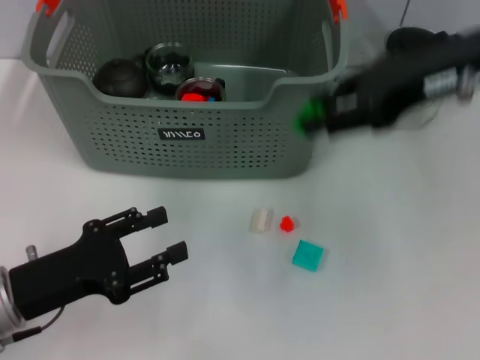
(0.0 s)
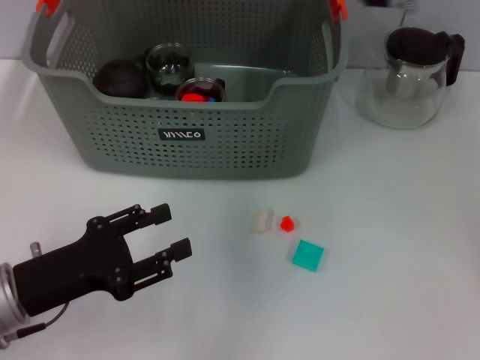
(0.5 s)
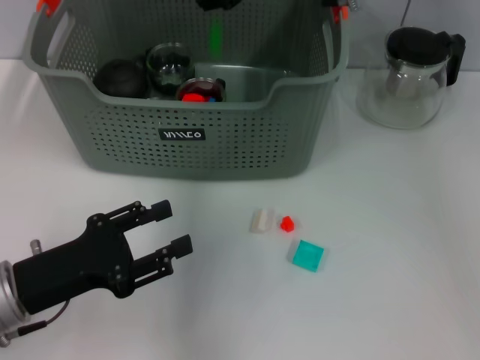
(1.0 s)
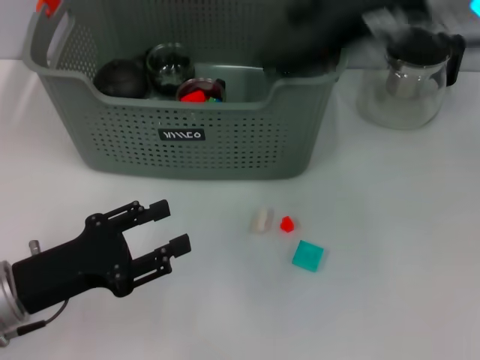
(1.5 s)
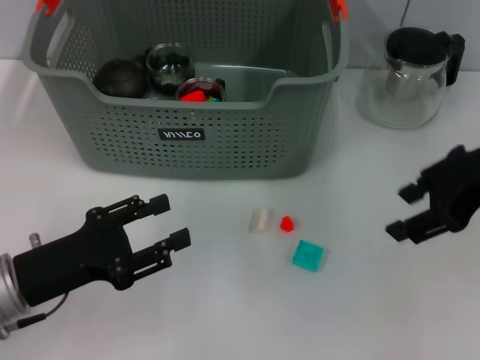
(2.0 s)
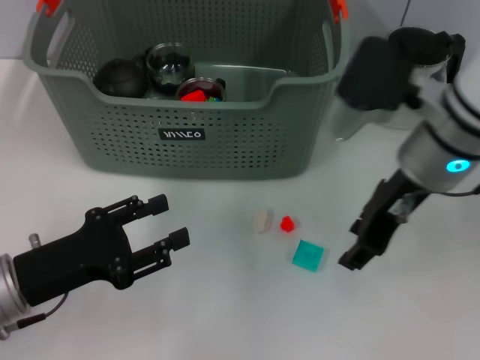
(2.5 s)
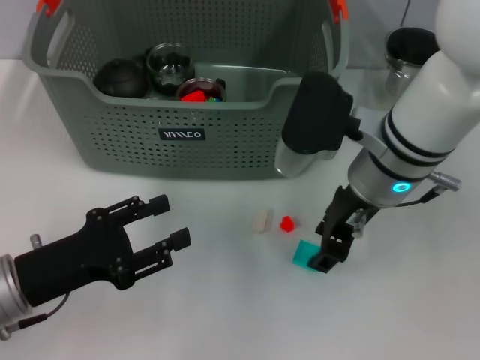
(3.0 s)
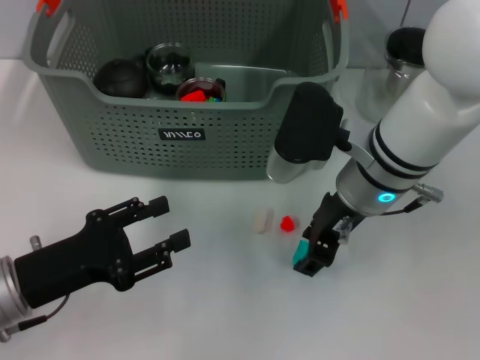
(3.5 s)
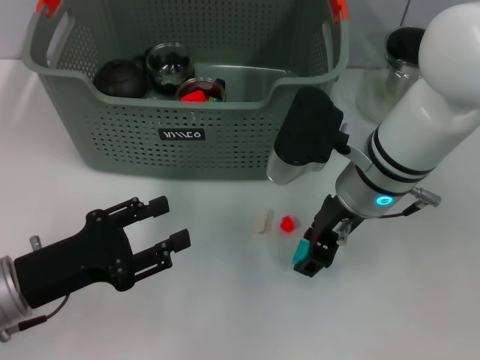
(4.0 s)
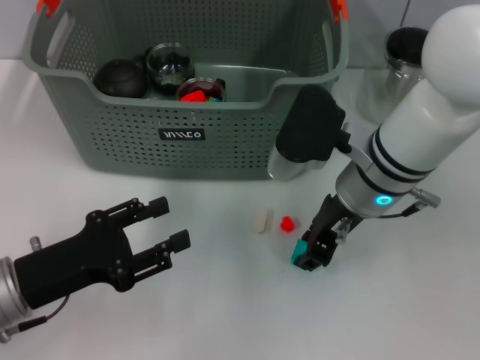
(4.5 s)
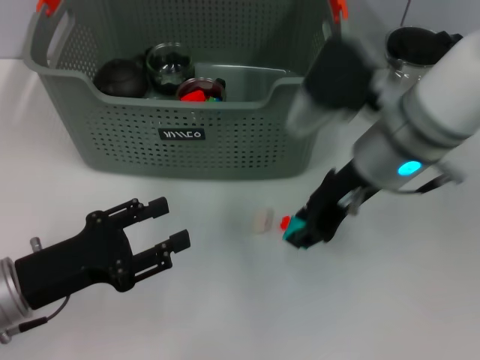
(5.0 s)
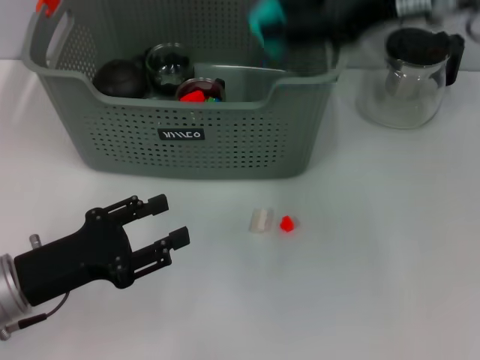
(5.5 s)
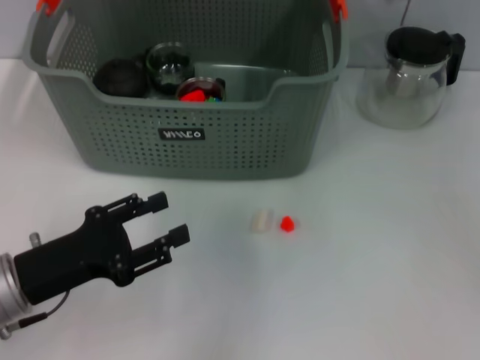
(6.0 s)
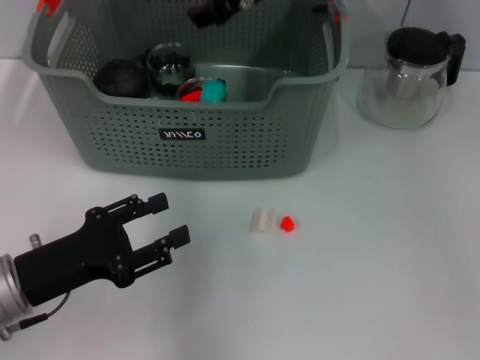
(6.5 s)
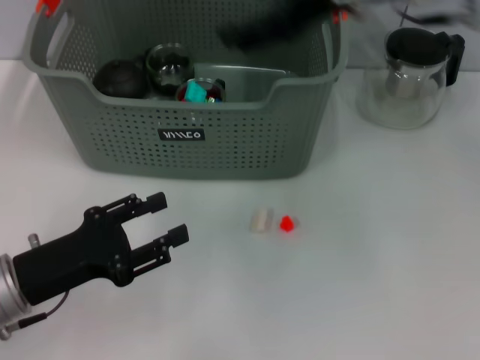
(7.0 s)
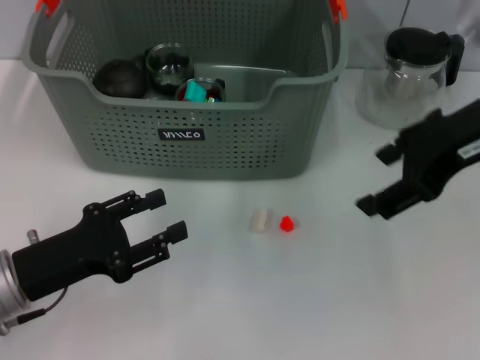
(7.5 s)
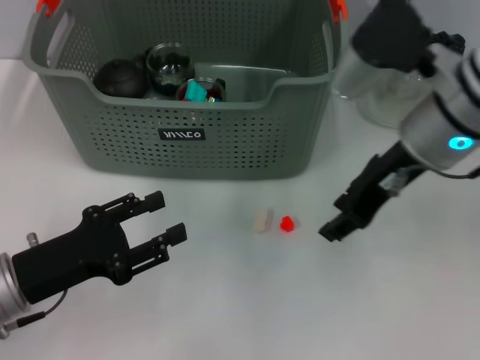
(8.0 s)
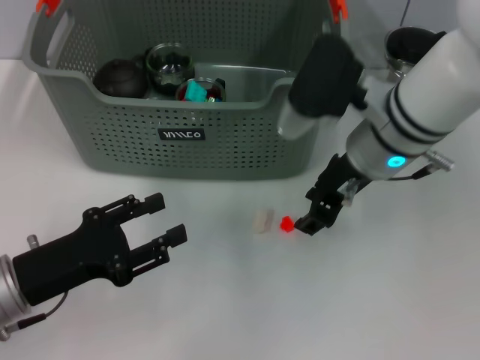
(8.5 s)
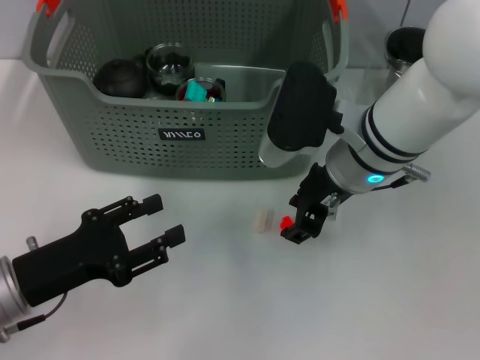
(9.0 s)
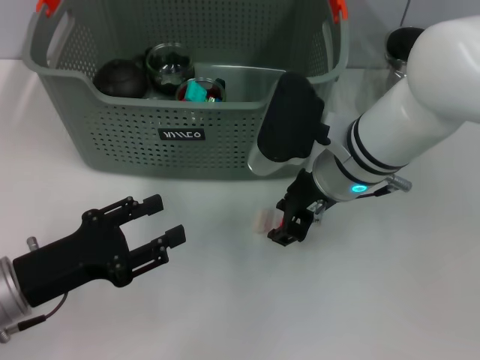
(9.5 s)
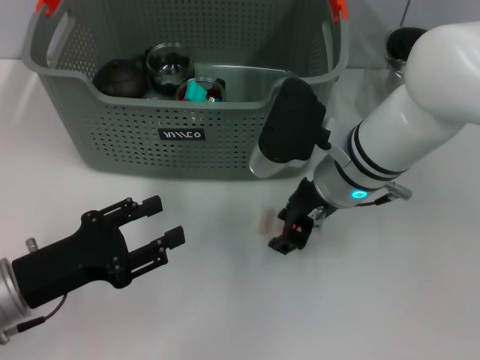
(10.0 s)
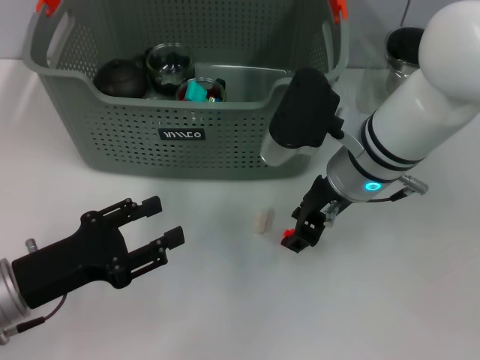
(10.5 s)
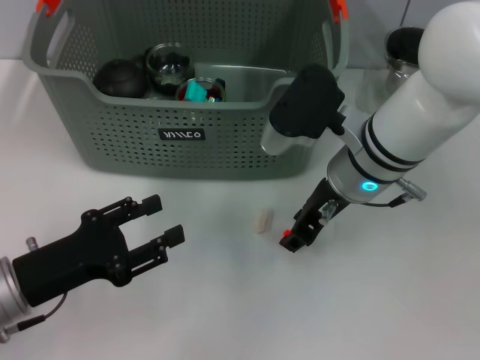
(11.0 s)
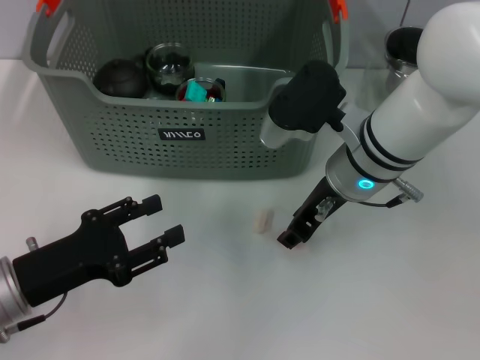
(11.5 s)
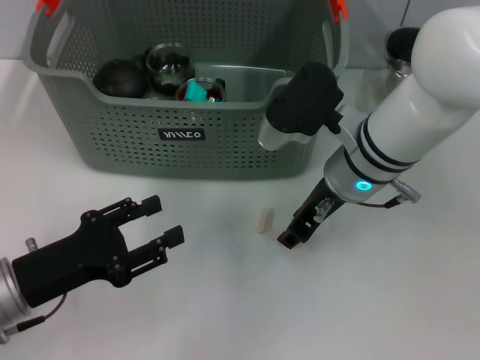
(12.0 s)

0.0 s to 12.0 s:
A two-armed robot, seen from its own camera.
Task of the whole recording: pick up the teacup on the table and place it into the storage bin, pick up the block on the table and place it into the storage bin.
Step, 0.0 to 1.0 s: Place the green block in the storage box with right gripper.
Step, 1.5 to 4.5 s: Grasp the light blue block with right gripper.
Step, 5.0 to 6.5 s: Place the light blue block in the storage box with right gripper.
0.0 to 2.0 s: The right gripper moves approximately 15 cm to the left and comes back, and opens its fingers.
2.0 to 4.0 s: The right gripper moves to the left and downward, some 15 cm.
4.0 to 6.0 s: The right gripper shifts about 15 cm upward and forward.
6.0 to 8.0 s: The right gripper goes left and right, roughly 15 cm each way, reversing 2 times, and opens up.
8.0 to 10.0 s: The right gripper is displaced downward and to the left by about 10 cm.
10.0 to 12.0 s: The grippers move only a little.

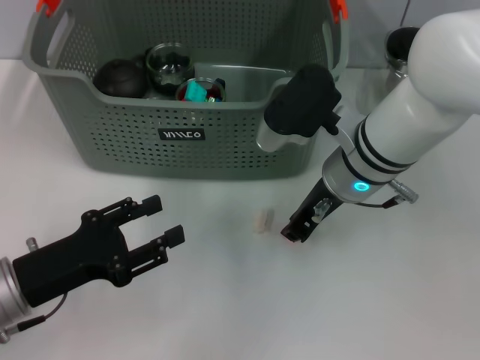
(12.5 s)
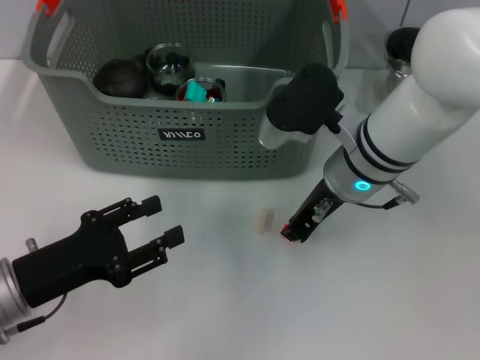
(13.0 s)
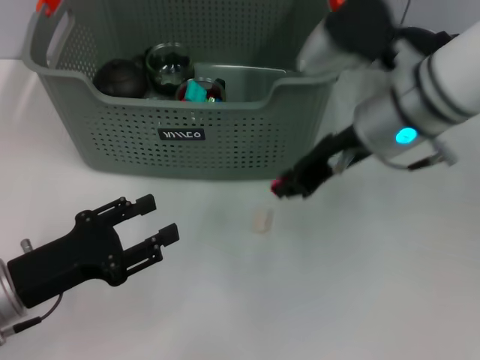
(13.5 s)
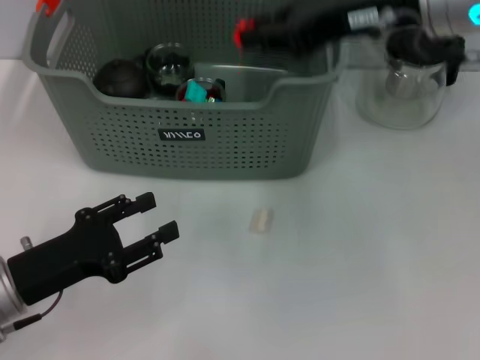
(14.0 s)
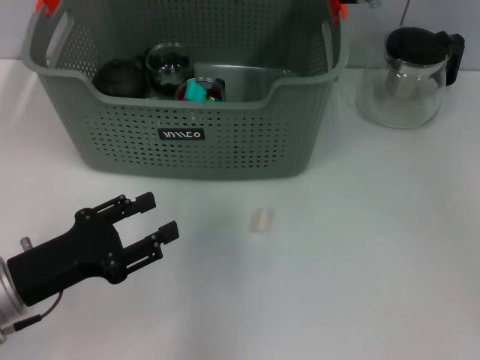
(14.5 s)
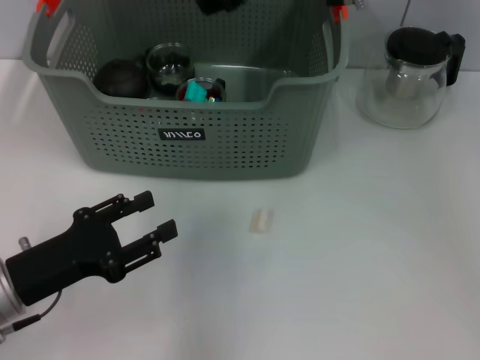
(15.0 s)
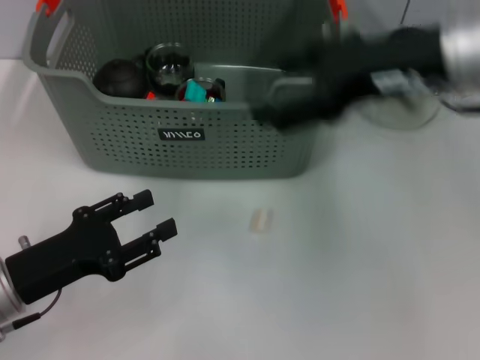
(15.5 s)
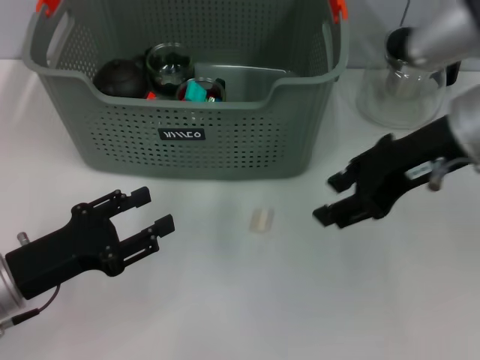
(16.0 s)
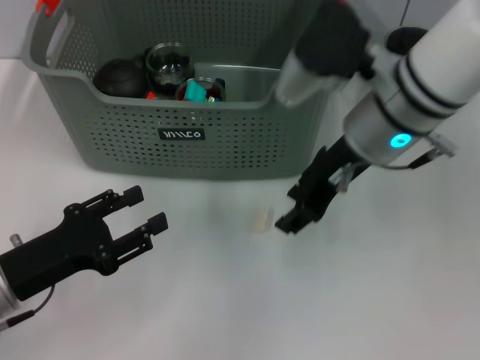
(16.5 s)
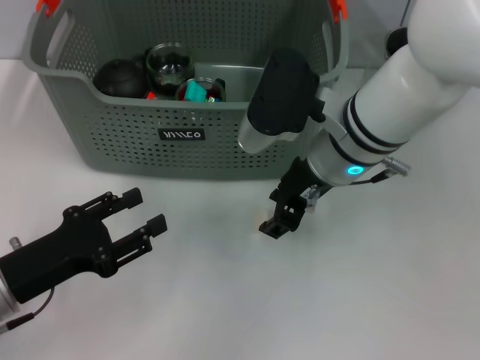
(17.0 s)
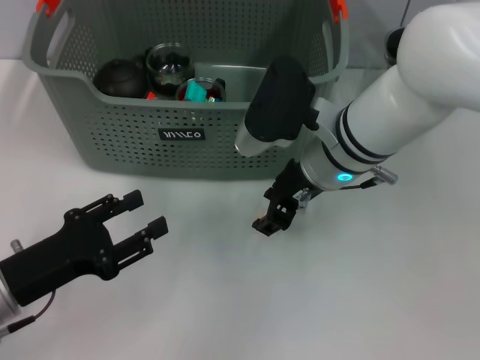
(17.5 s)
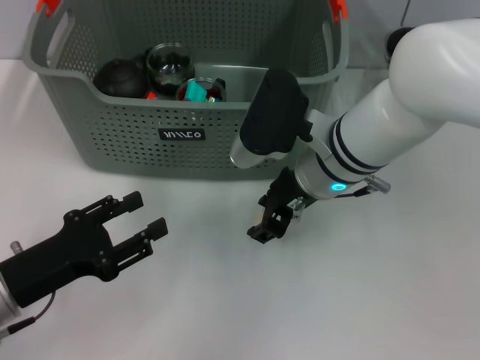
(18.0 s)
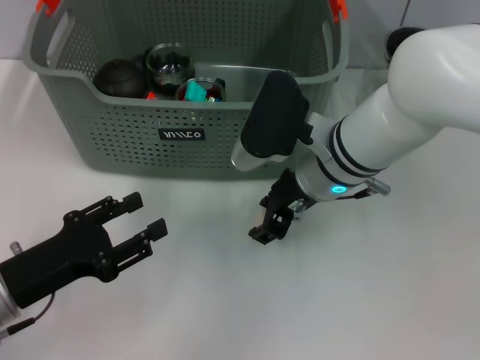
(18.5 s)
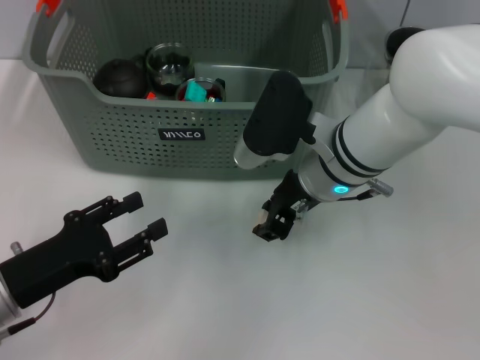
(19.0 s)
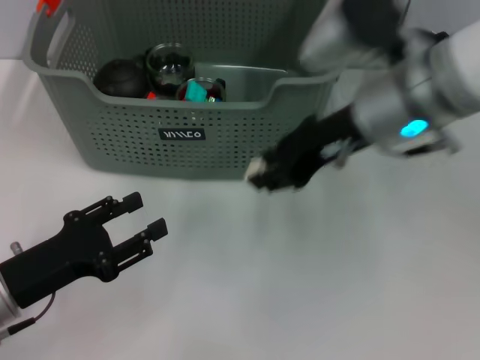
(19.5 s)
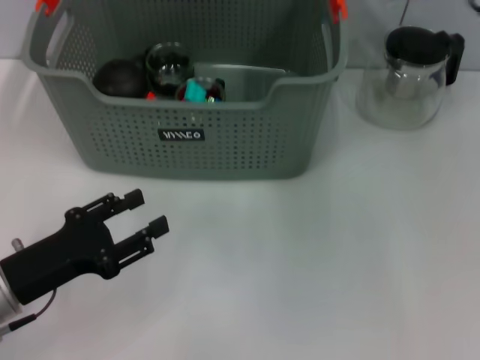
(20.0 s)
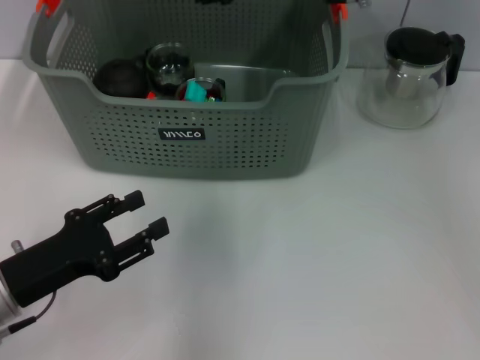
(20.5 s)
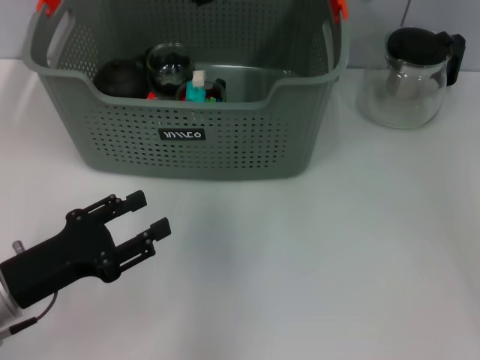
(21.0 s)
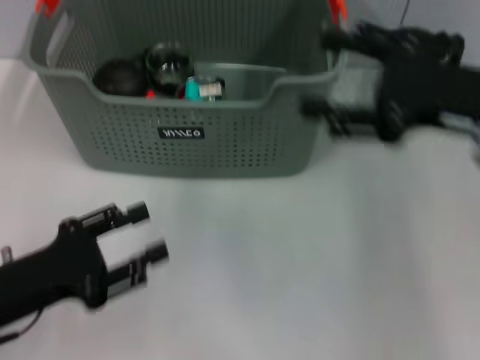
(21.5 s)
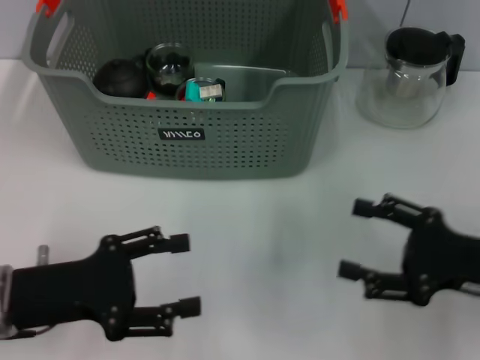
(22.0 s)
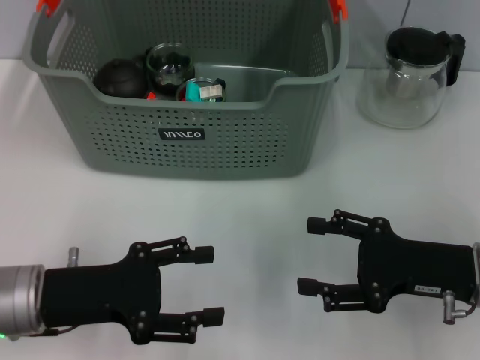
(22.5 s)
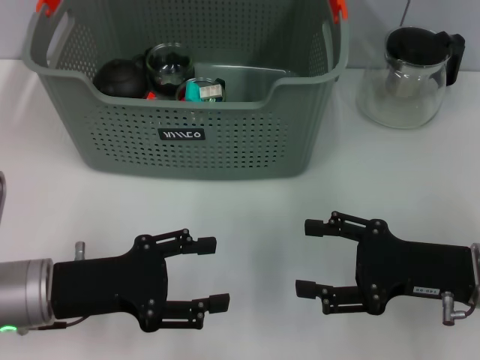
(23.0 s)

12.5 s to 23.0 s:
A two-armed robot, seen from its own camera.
Task of the whole recording: pick up the teacup on the table and place it into the storage bin, pick up the block on the table and place it into the storage bin.
Step, 13.5 to 14.5 s: Place the orange block in the storage box with right gripper.
Step, 15.5 to 19.0 s: Grasp the white block with right gripper.
Step, 19.5 to 21.0 s: Place the white block in the storage box with right gripper.
12.5 to 14.5 s: The right gripper goes approximately 15 cm upward and forward.
14.5 to 16.5 s: The right gripper travels backward and downward by roughly 10 cm.
16.5 to 19.0 s: The right gripper shifts about 5 cm downward.
19.0 to 21.0 s: The right gripper is displaced upward and forward by approximately 20 cm.
21.0 to 23.0 s: The right gripper goes roughly 35 cm downward, backward and to the right, and opens its fingers.

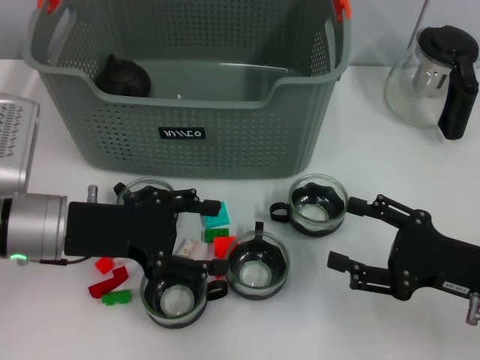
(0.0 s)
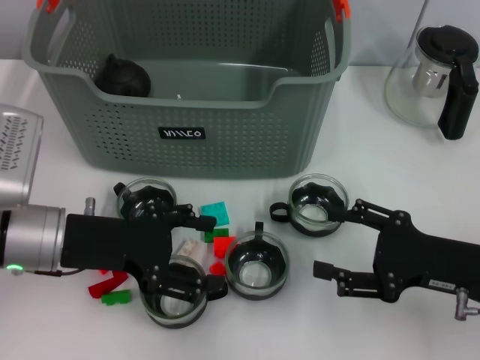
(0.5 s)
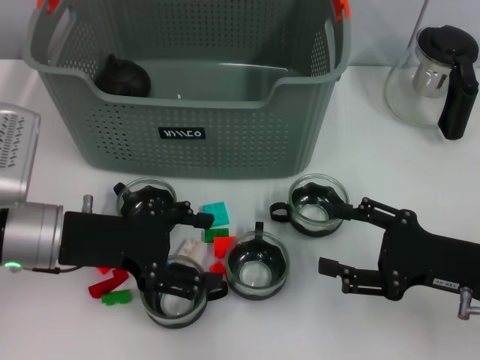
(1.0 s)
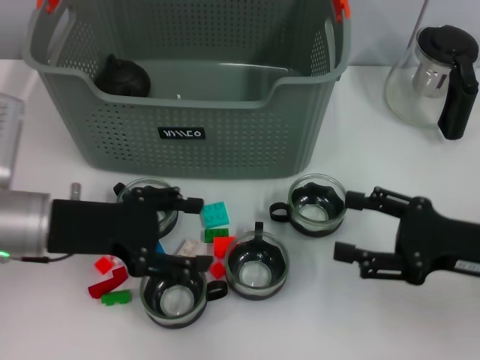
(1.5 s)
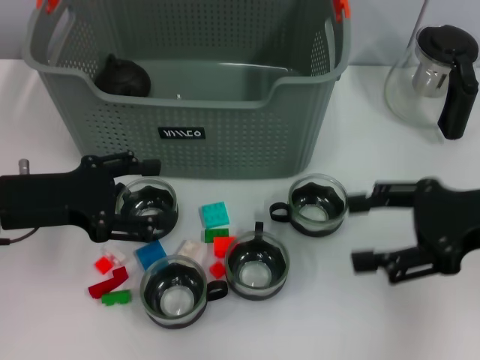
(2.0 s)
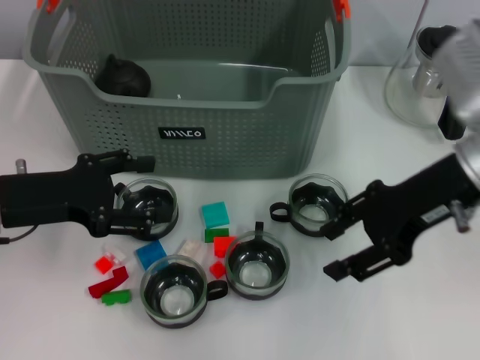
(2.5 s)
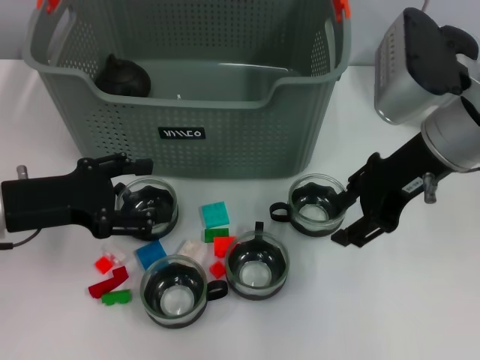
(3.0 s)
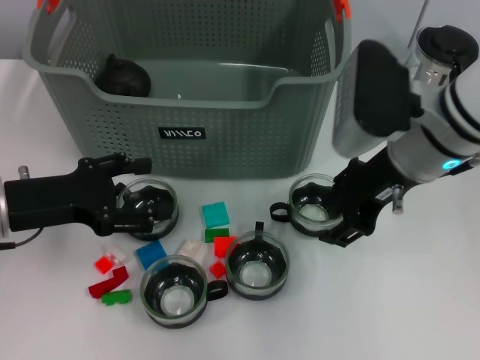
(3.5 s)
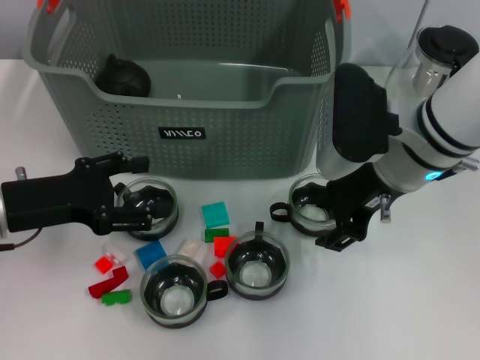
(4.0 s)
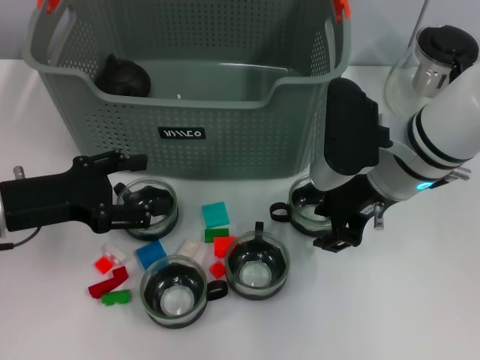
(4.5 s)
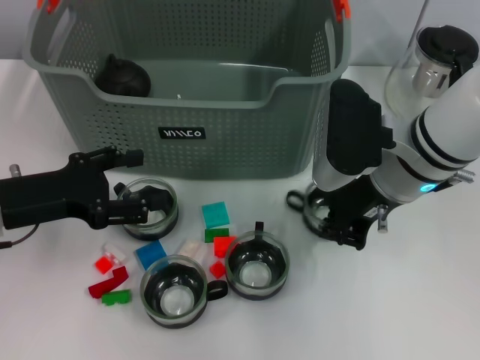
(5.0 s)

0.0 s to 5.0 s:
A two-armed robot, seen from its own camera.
Task of the whole recording: pick up the teacup on the table and place it into the storage bin, pick up the block on the table and place it into the storage bin.
Step, 0.0 to 5.0 s: Grasp the cup with right gripper.
0.0 to 2.5 s: The right gripper shifts roughly 20 cm upward, forward and to the left. The left gripper moves to the left, roughly 5 cm.
2.5 to 5.0 s: The right gripper shifts approximately 5 cm to the left, and closes up.
